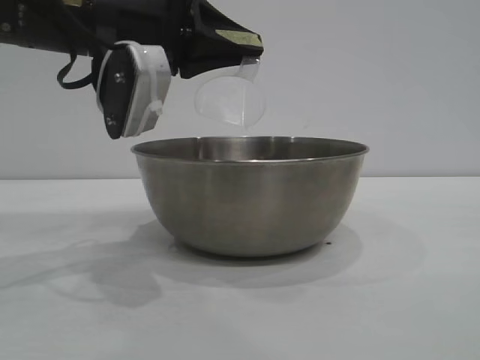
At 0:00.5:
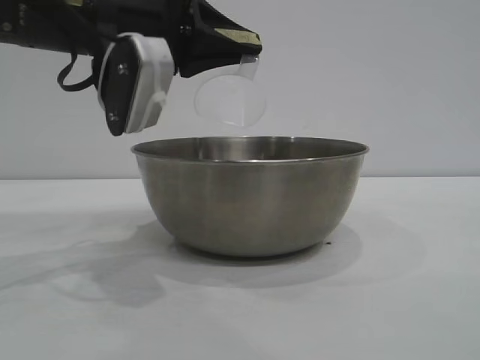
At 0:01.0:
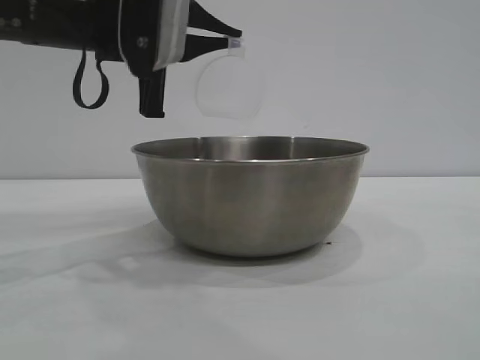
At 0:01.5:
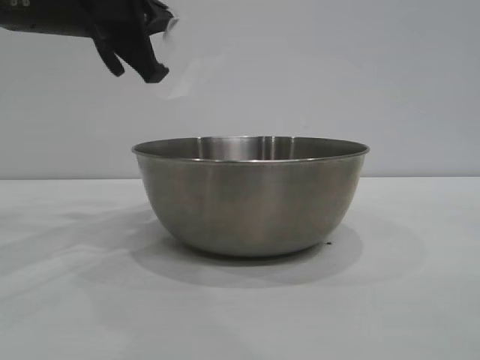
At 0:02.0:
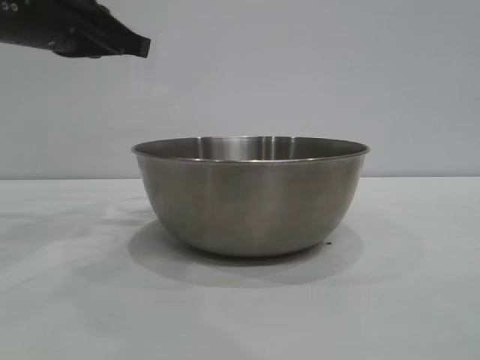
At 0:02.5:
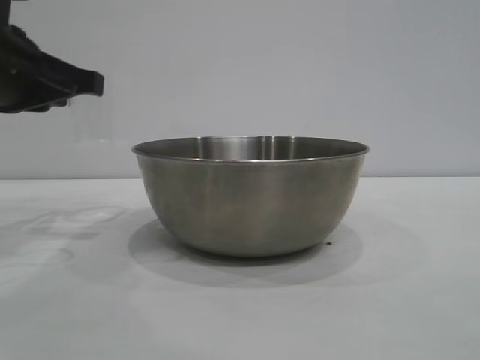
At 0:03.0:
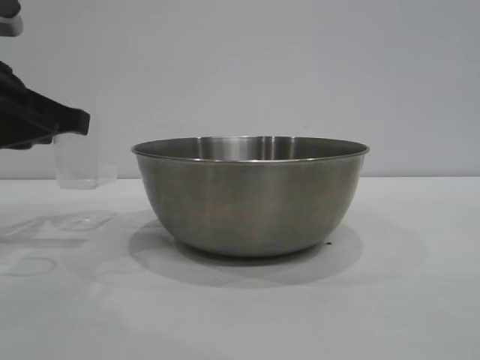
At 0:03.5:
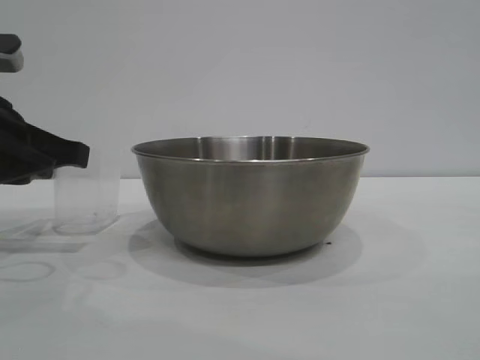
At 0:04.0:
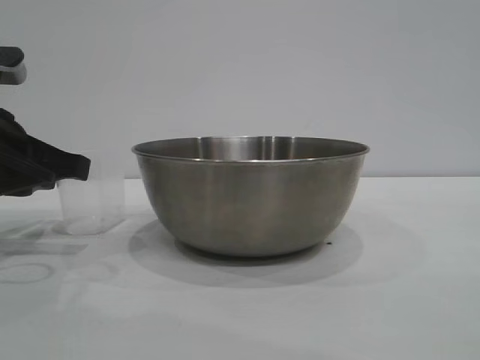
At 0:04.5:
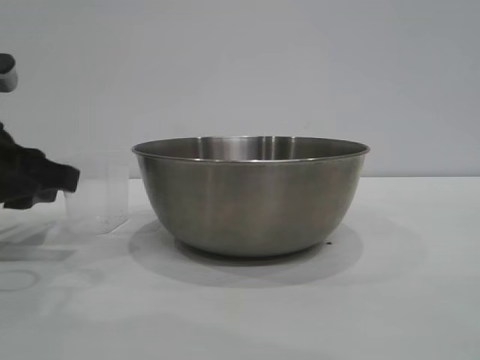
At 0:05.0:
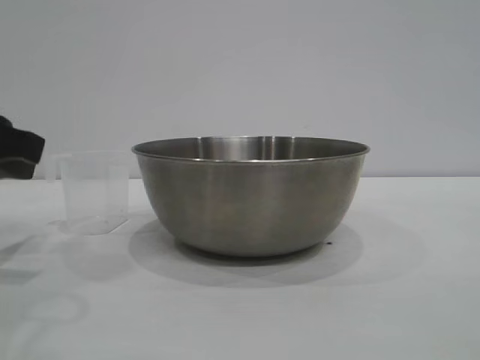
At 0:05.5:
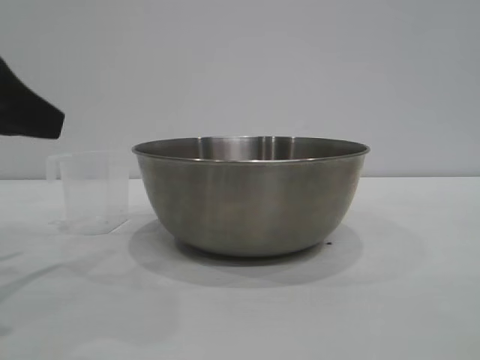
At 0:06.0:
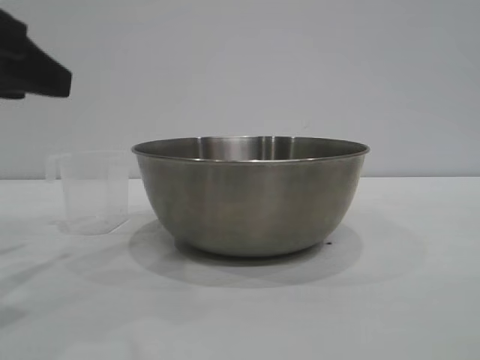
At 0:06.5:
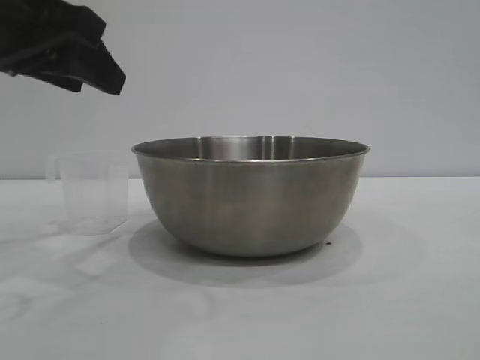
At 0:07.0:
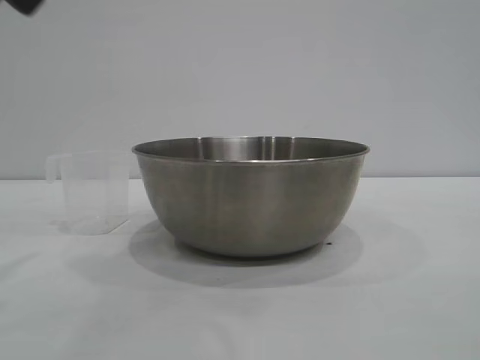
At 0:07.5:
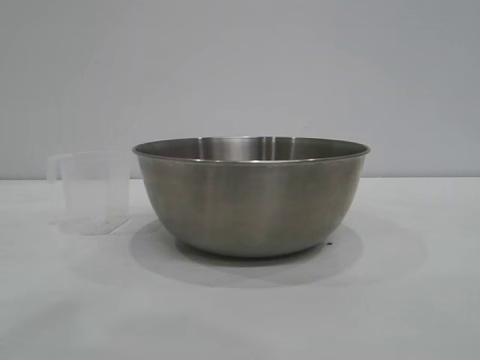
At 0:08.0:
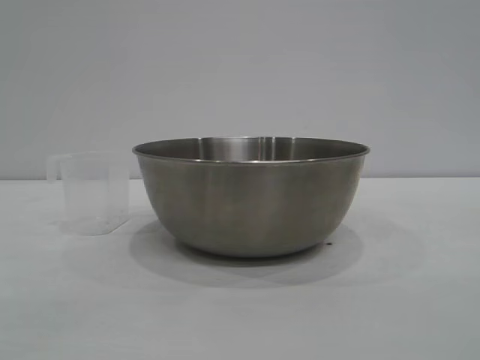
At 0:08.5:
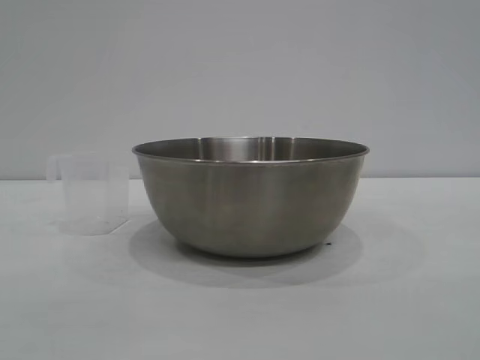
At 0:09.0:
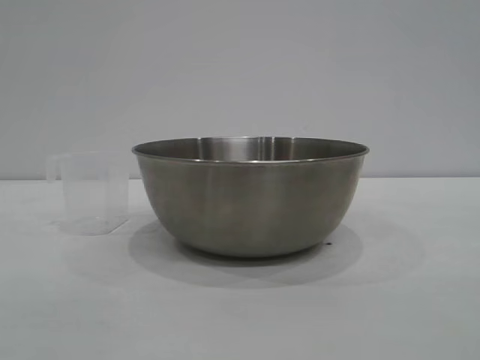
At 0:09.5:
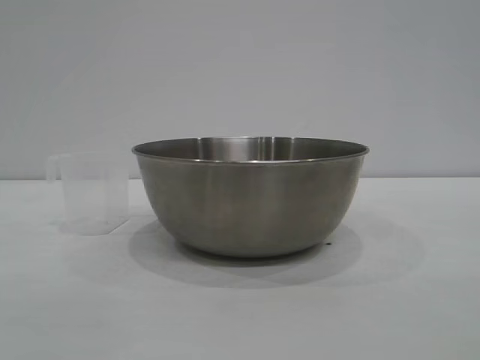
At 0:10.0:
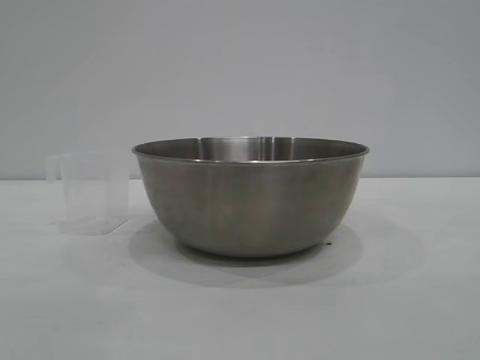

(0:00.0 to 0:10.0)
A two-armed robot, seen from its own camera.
Task of the whole recording: the right gripper grasp the rice container and place it in the center of the table, the left gripper grasp the rice scoop and pour the rice into the rice container.
Step, 0:01.5 - 0:04.5: Place the cup on the table with the left gripper.
